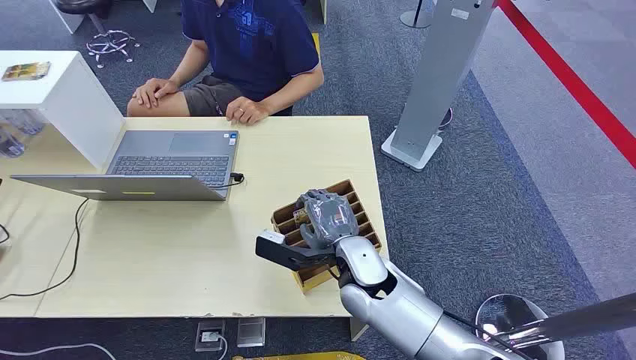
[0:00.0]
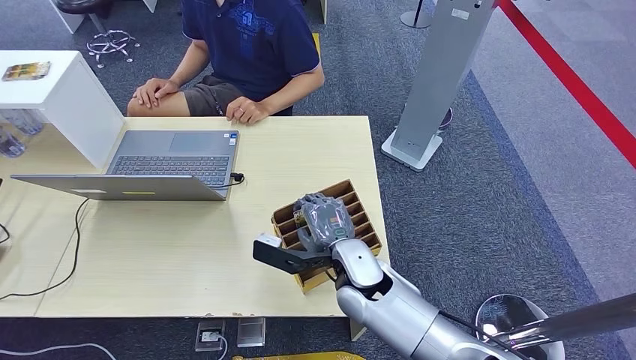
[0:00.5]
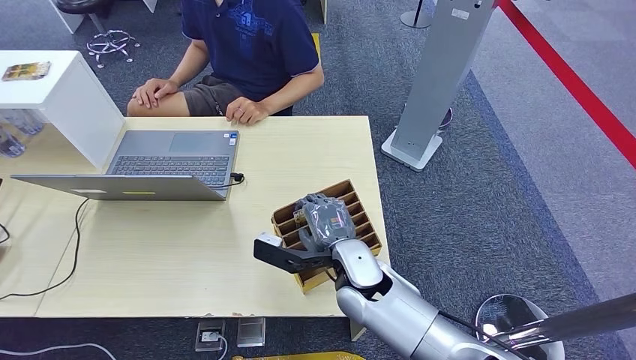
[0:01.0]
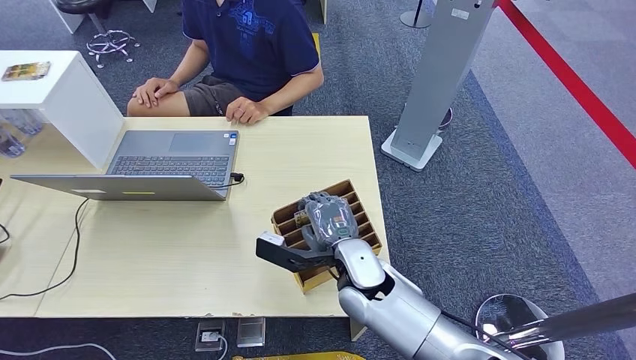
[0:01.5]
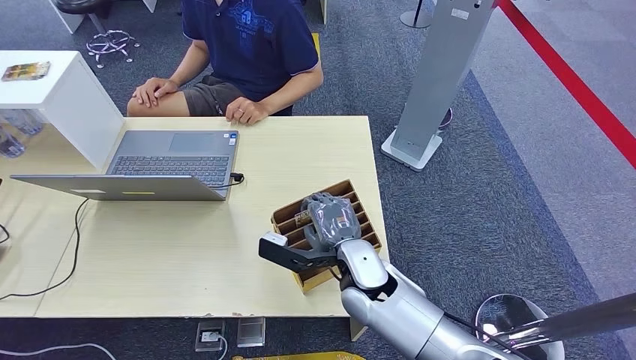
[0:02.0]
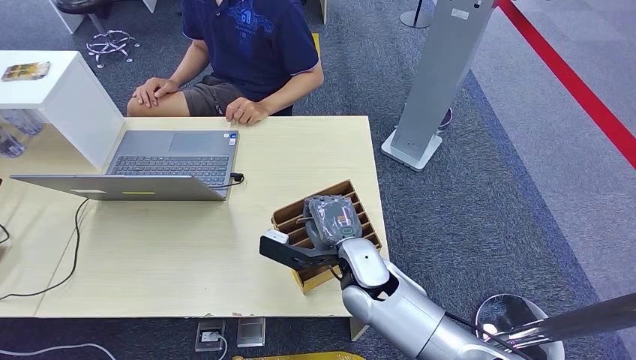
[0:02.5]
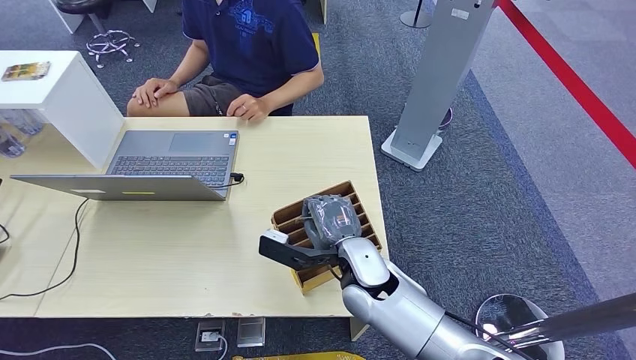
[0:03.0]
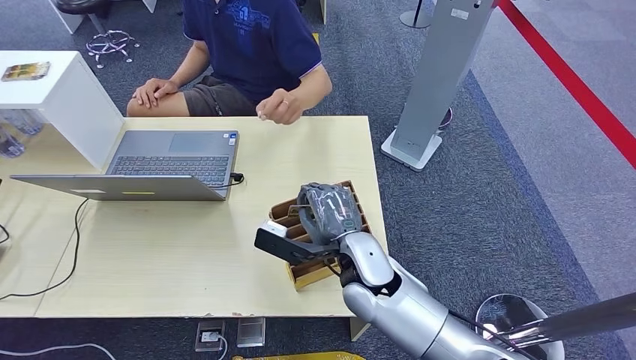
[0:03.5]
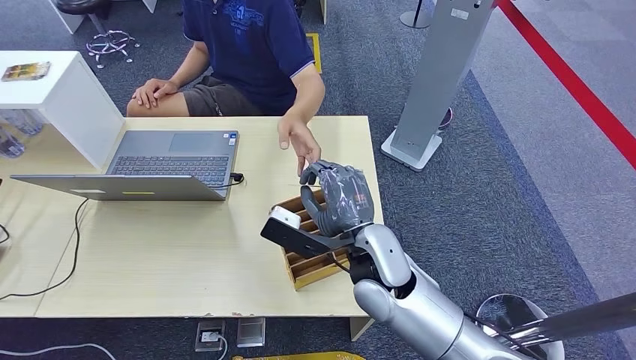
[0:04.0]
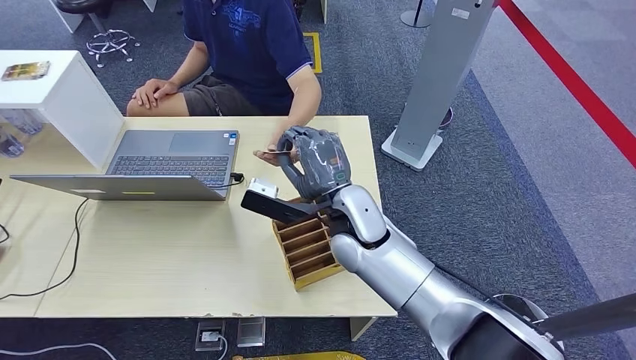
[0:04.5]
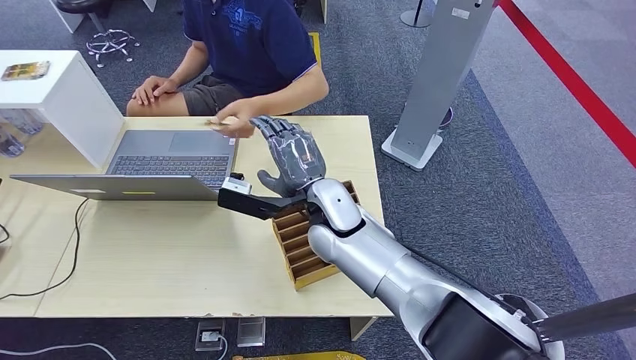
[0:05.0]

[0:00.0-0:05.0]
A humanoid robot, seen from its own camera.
Step, 0:00.0 to 0:03.0: Pick up the room card from the card holder.
Step, 0:04.0 to 0:05.0: Hand the room card to the target.
0:02.5 to 0:05.0: The right hand heads upward, forward and to the left, covering approximately 10 cm.

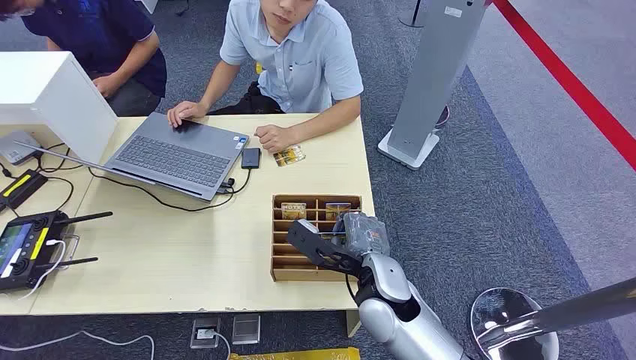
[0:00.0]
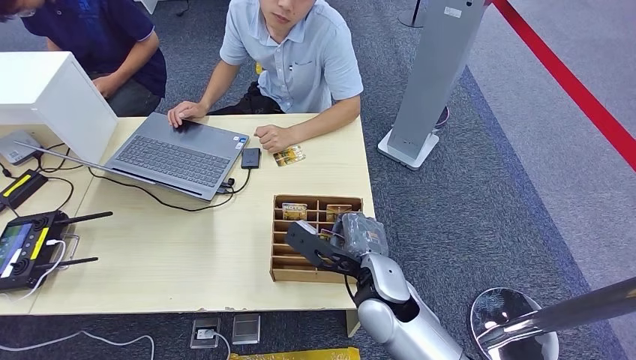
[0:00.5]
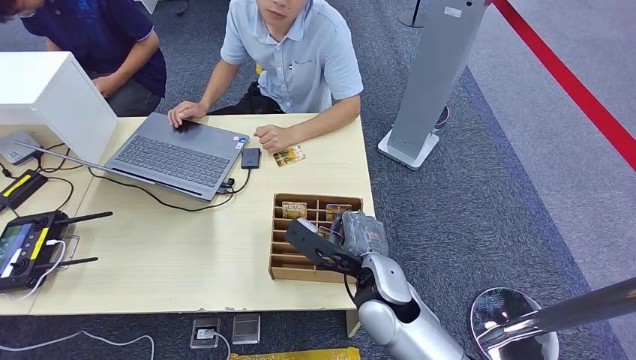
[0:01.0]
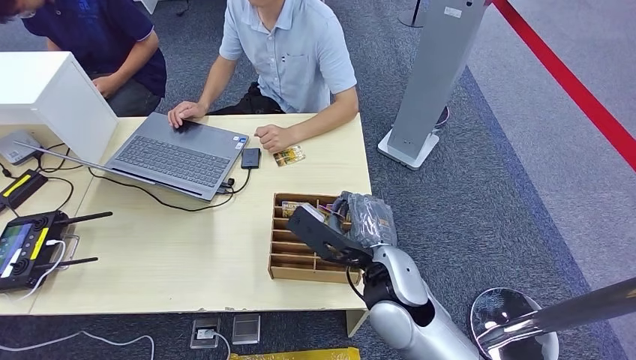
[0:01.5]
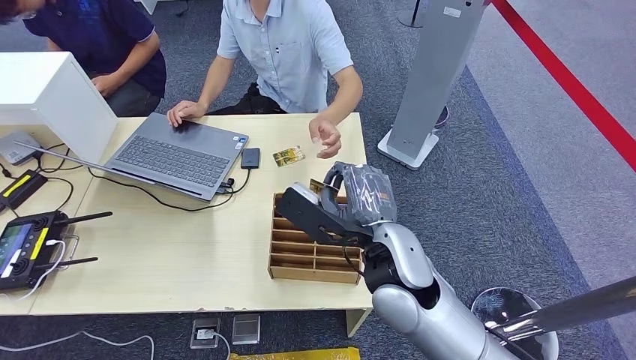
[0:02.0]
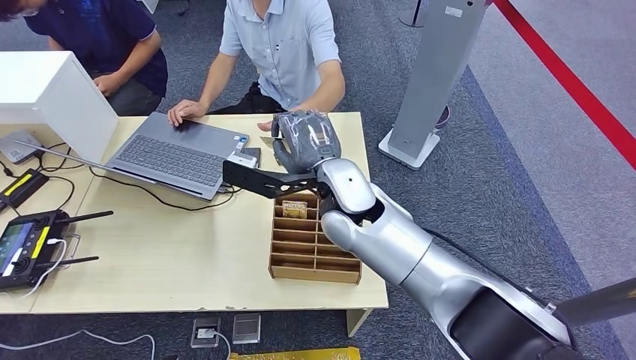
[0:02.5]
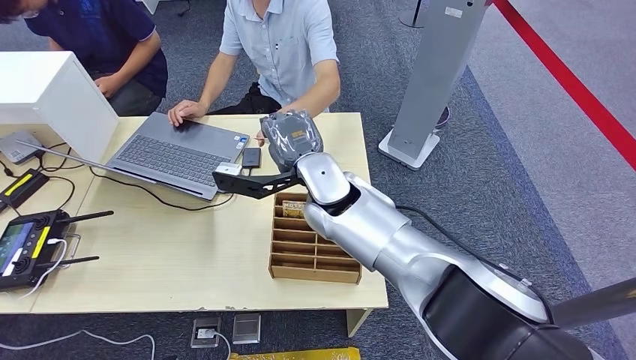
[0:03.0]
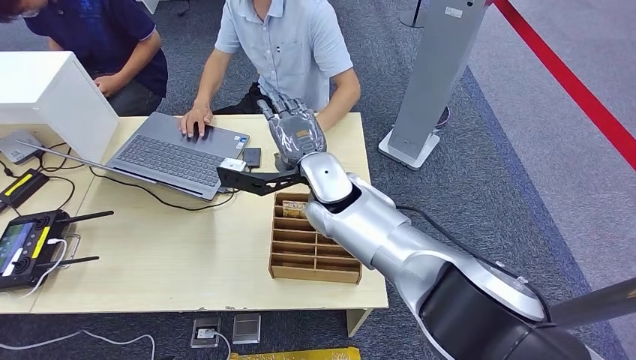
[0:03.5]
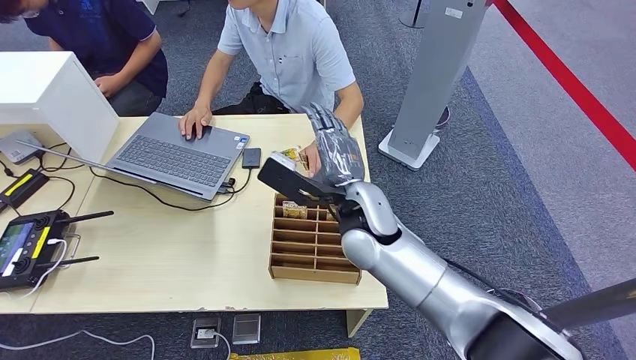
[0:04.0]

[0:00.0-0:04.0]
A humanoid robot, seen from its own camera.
Step, 0:00.0 to 0:01.5: Pick up the room card from the card holder.
Step, 0:02.0 to 0:04.0: Hand the room card to the target.
0:02.0 to 0:04.0: The right hand travels forward by some 10 cm.
